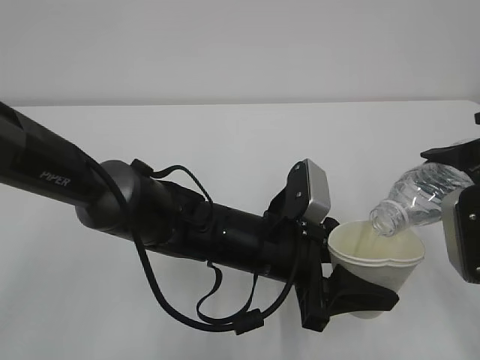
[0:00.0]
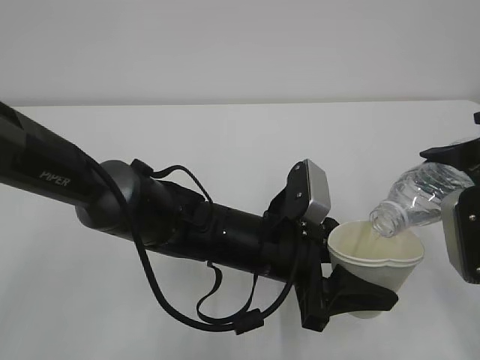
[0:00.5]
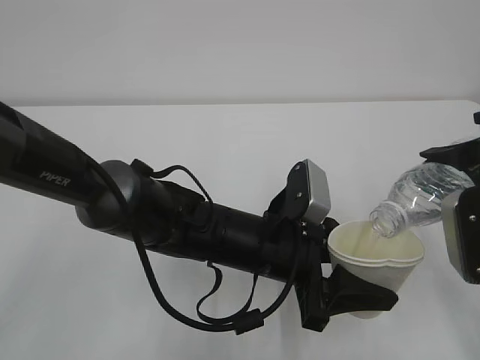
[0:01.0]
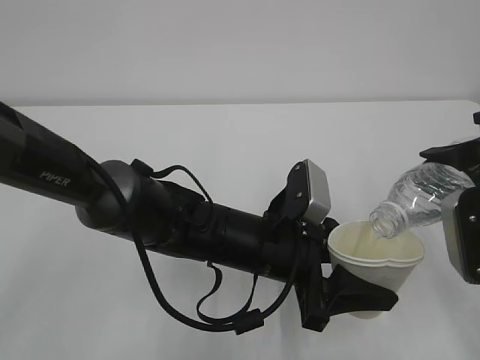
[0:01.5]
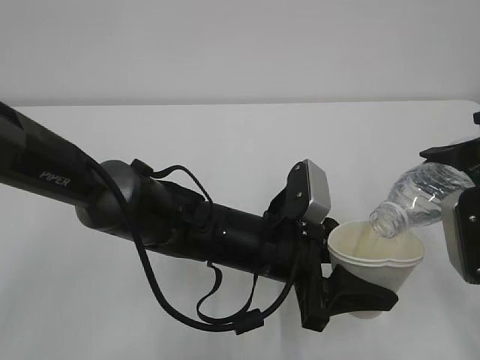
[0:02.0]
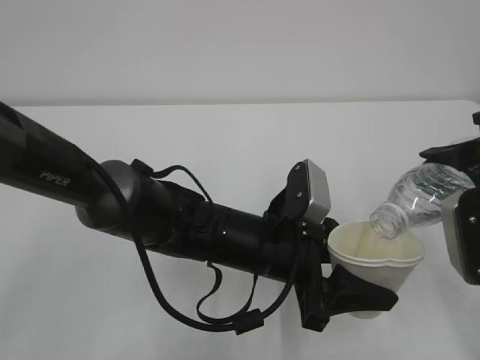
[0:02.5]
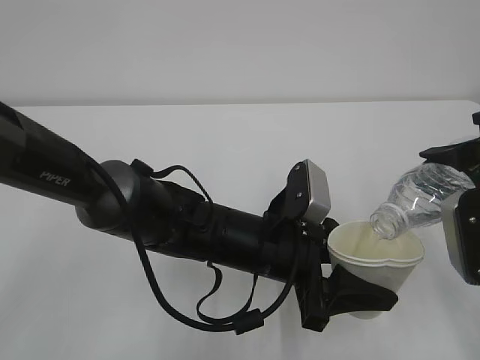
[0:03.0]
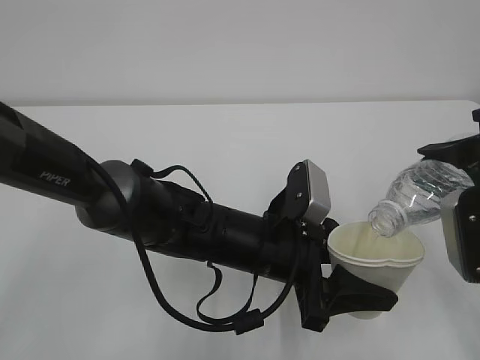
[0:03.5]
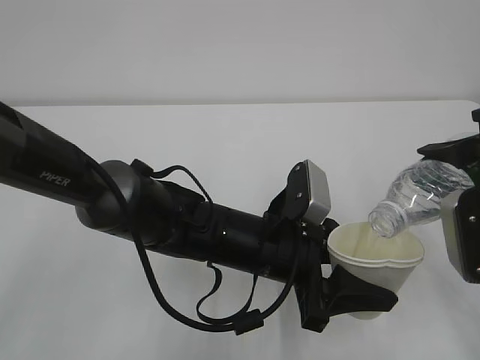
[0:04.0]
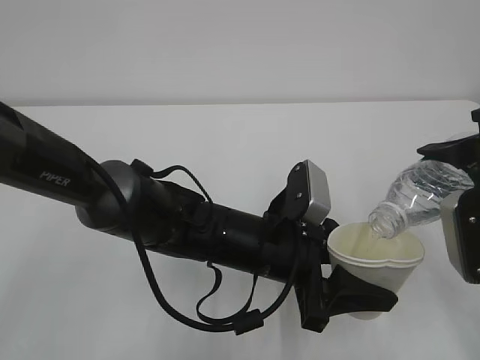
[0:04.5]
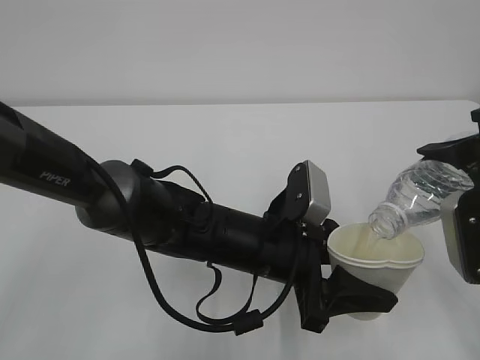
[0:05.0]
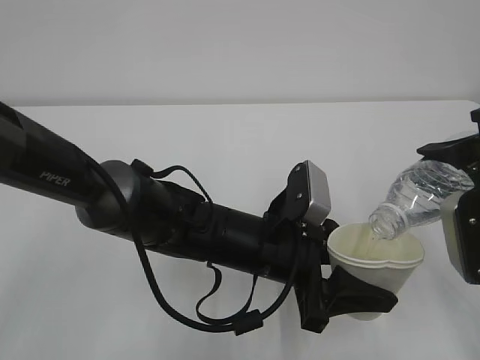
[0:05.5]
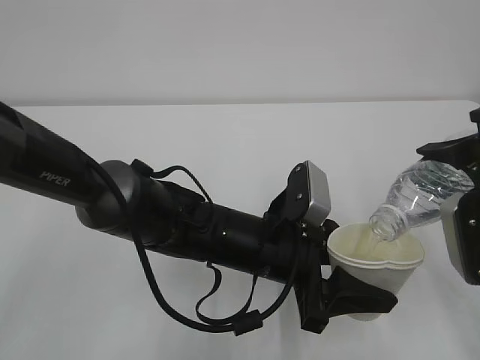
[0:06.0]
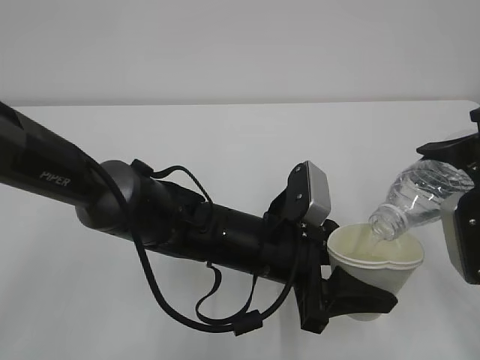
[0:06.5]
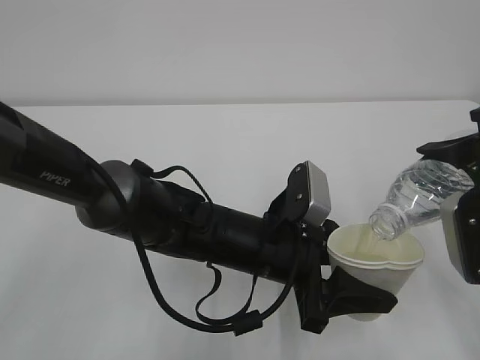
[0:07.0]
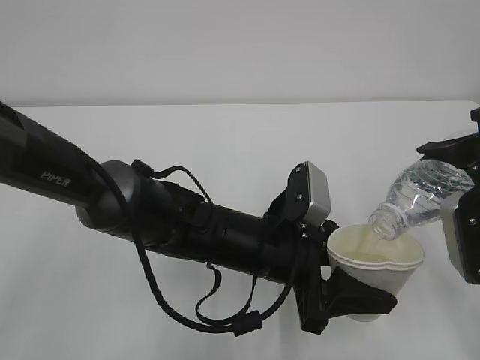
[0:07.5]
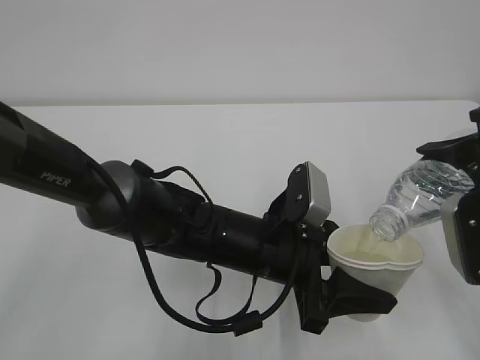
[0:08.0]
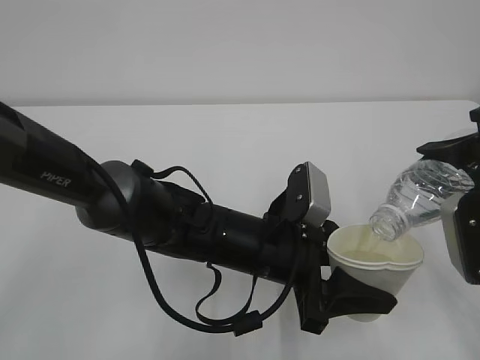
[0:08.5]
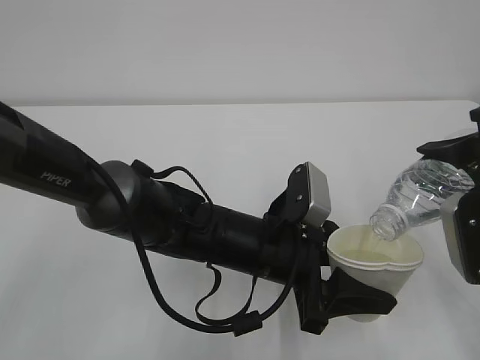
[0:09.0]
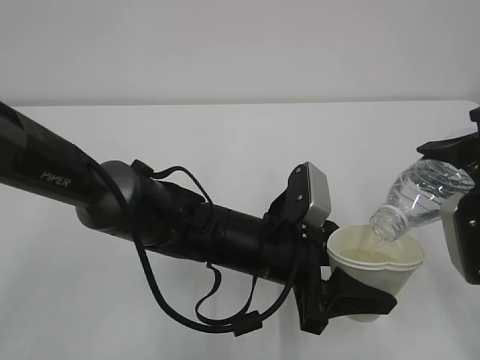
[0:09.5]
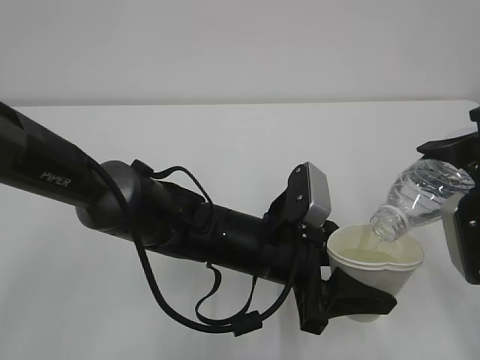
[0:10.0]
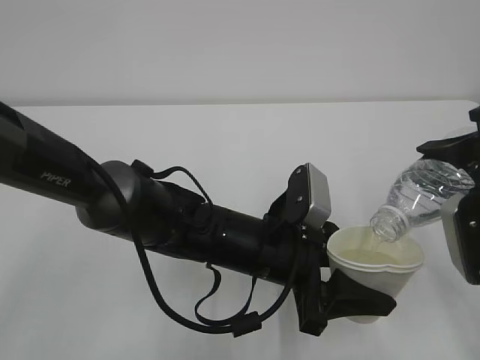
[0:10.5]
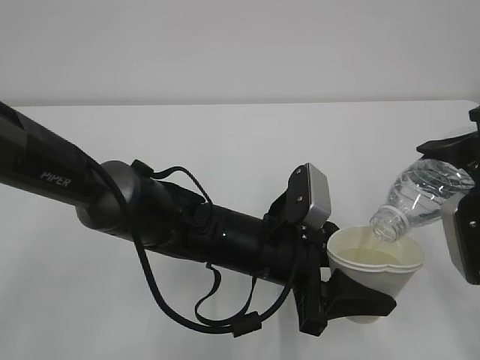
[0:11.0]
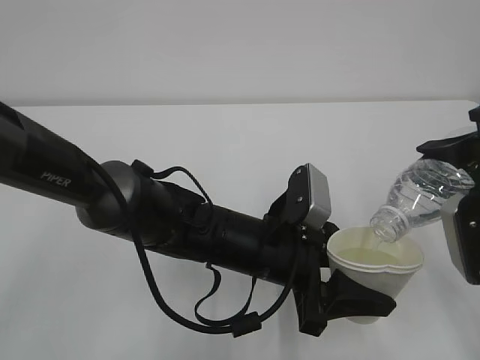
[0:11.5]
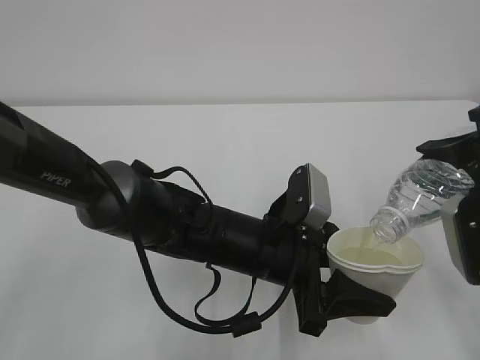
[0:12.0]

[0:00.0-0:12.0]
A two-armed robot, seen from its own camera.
0:00.0 to 0:04.0: Neither gripper changes place.
0:04.0 to 0:12.0: The two grippers keep their place.

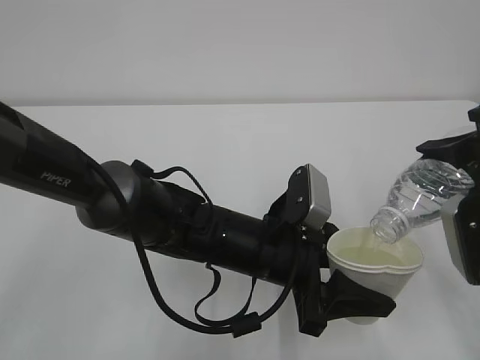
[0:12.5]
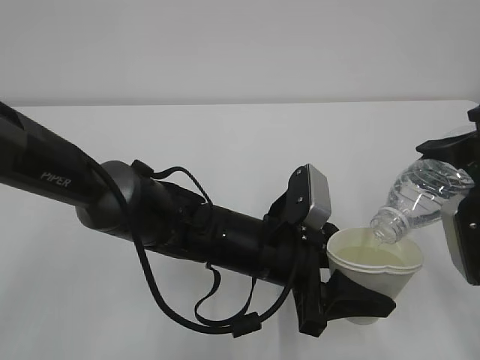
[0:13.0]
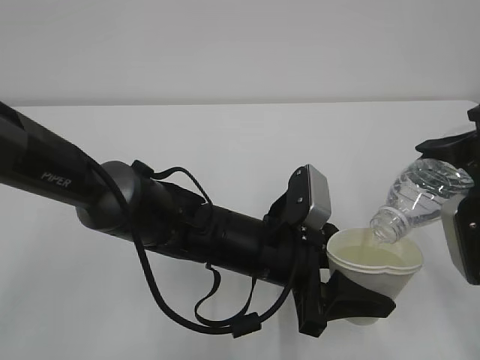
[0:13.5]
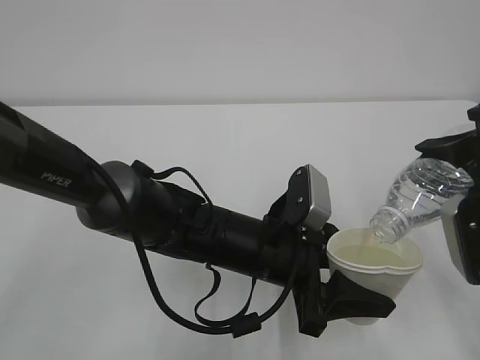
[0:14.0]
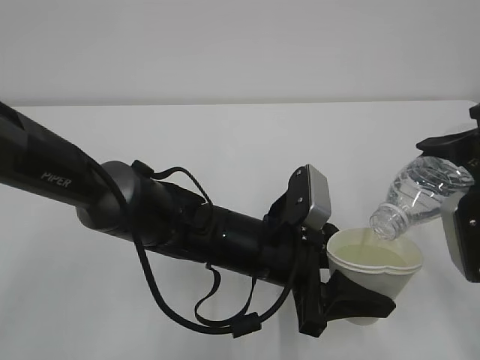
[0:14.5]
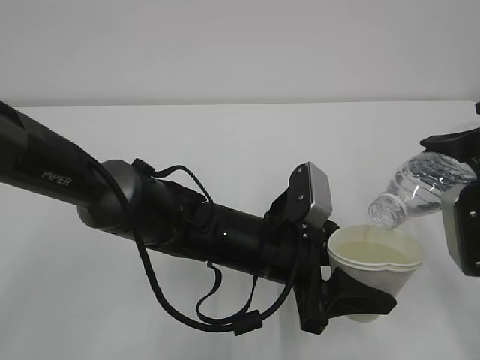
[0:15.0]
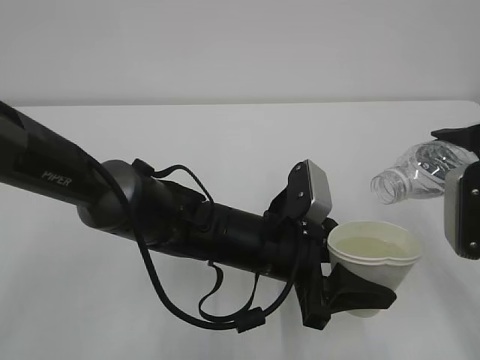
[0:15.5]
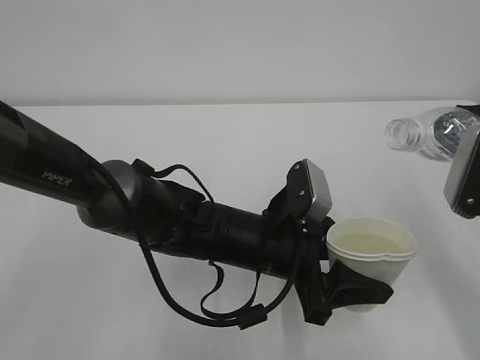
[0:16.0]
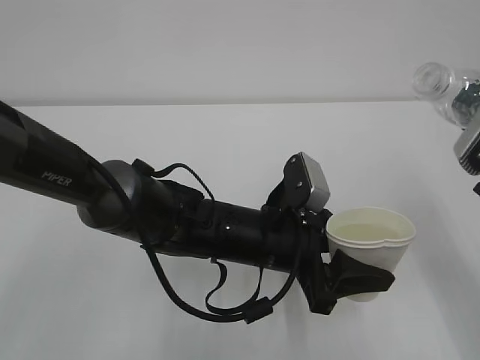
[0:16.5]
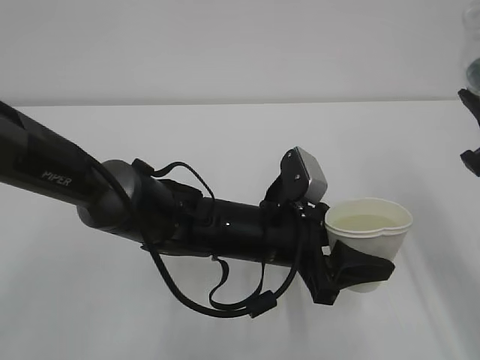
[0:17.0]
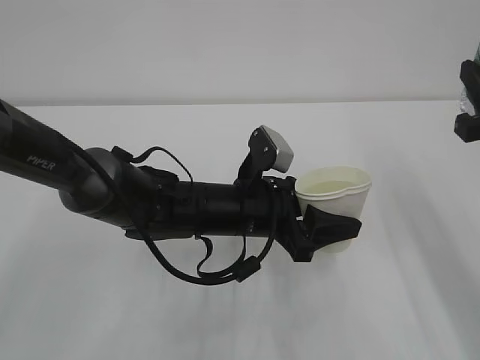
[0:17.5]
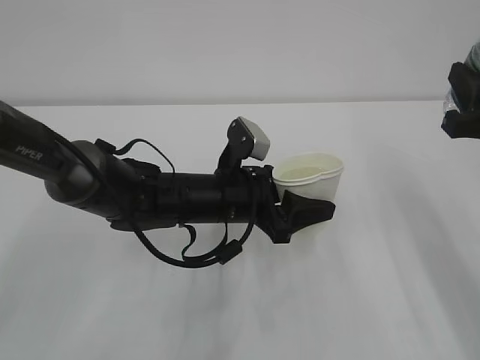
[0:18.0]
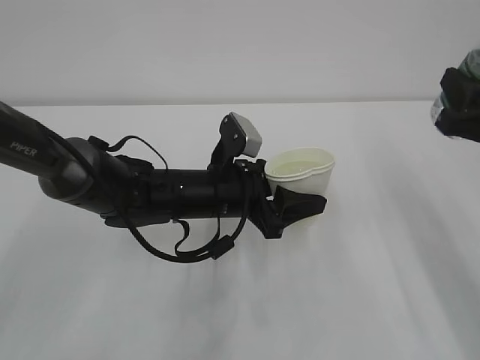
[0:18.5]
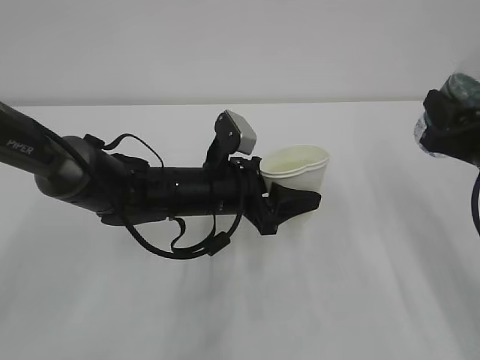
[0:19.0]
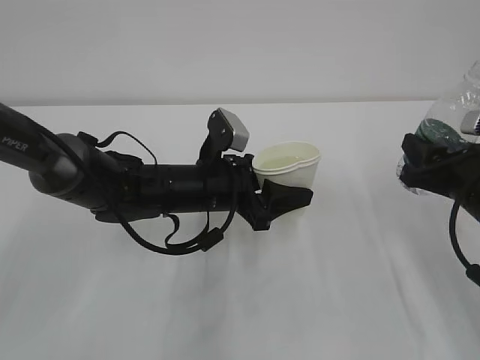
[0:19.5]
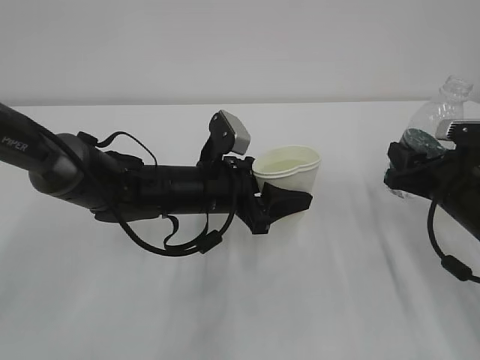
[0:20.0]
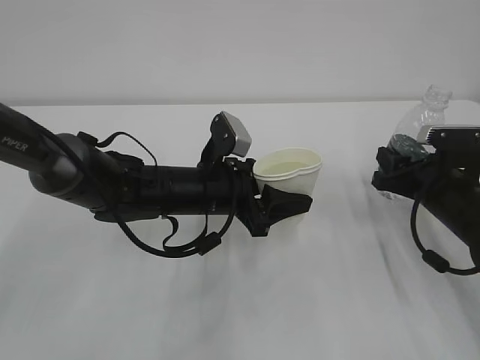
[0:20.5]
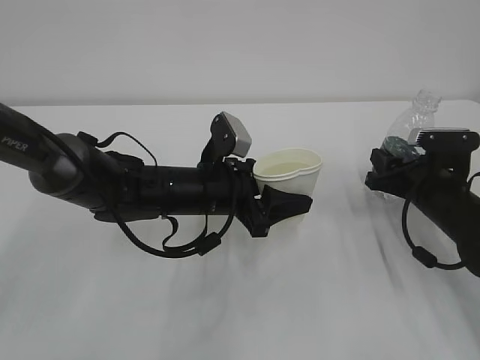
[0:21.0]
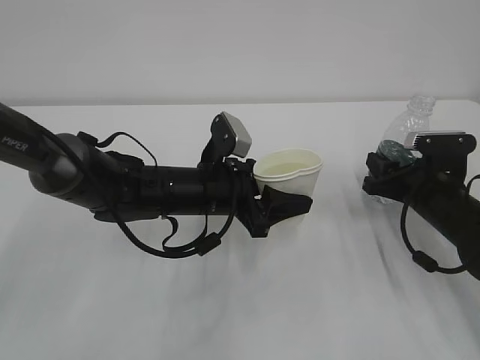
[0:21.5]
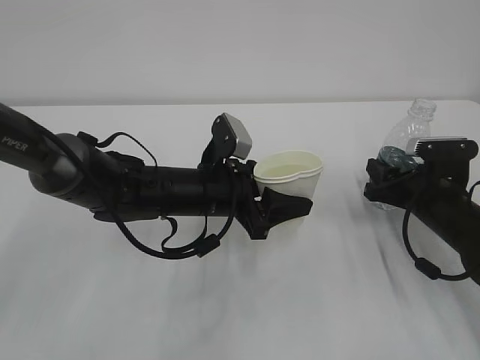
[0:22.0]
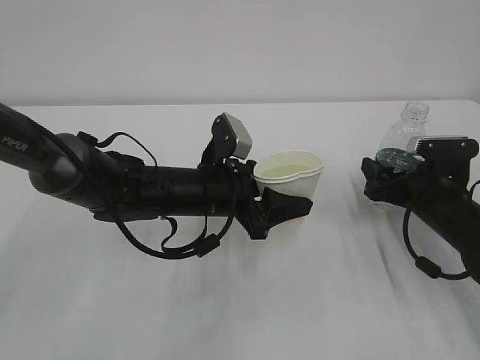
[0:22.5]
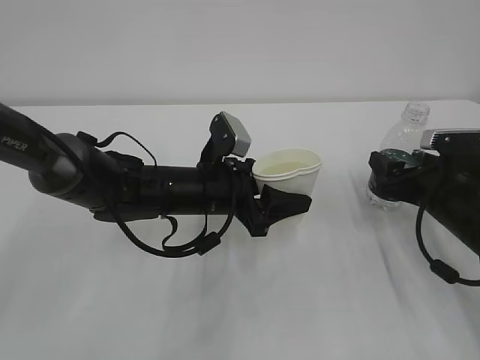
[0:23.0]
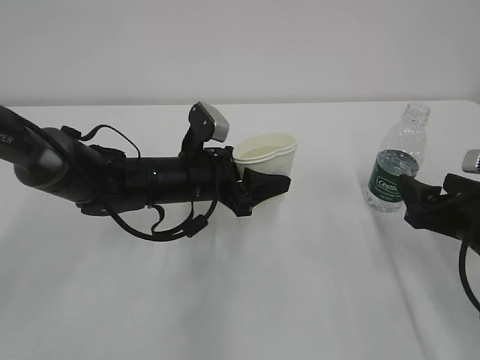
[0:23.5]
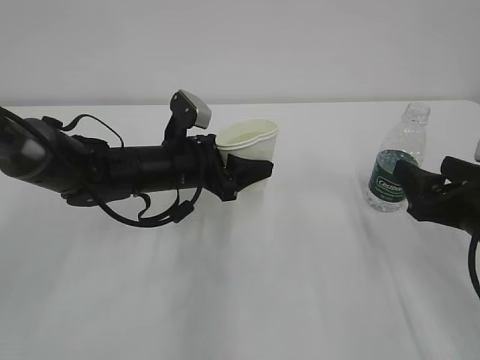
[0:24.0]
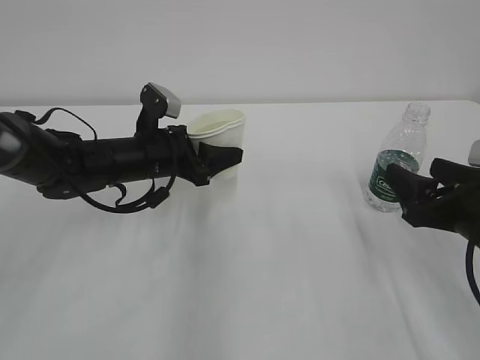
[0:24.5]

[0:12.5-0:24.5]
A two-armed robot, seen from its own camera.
0:12.5 to 0:14.5: The two grippers keep their place.
0:16.5 to 0:18.5: The left gripper travels forward and to the left by roughly 10 cm.
0:18.5 to 0:20.5: The right gripper is displaced downward and forward by some 15 cm.
0:20.5 to 0:22.5: The right gripper opens.
0:22.5 to 0:24.5: The left gripper moves to the left and forward, about 10 cm. Meanwhile the right gripper heads backward and upward, covering some 10 cm.

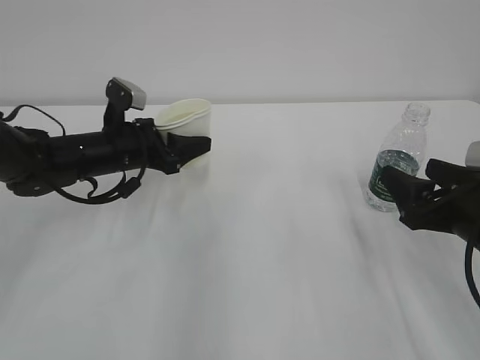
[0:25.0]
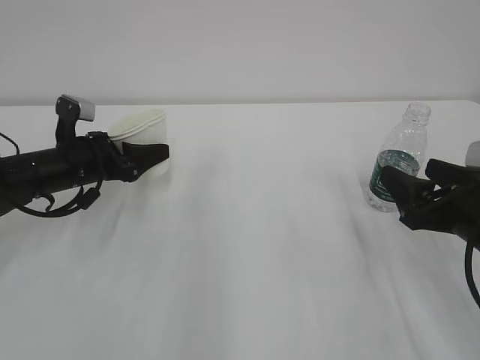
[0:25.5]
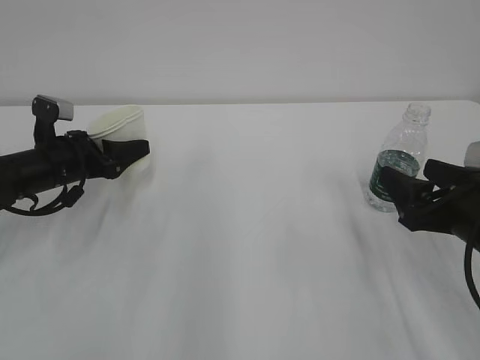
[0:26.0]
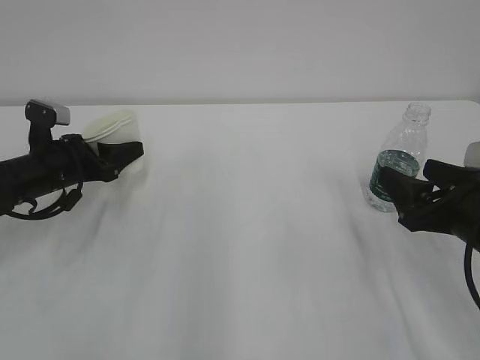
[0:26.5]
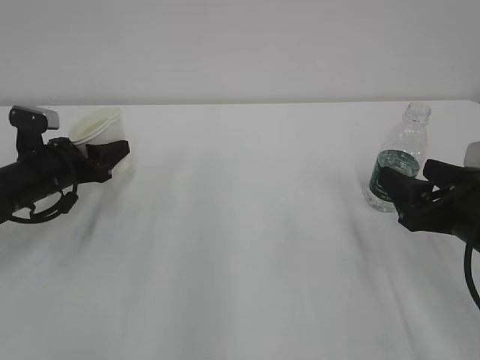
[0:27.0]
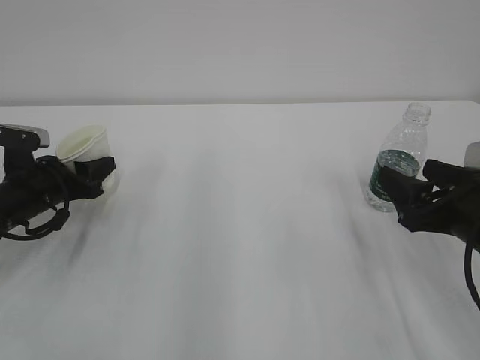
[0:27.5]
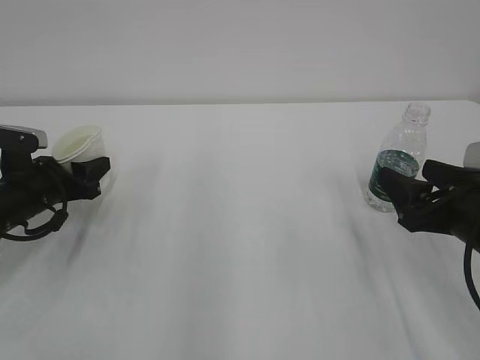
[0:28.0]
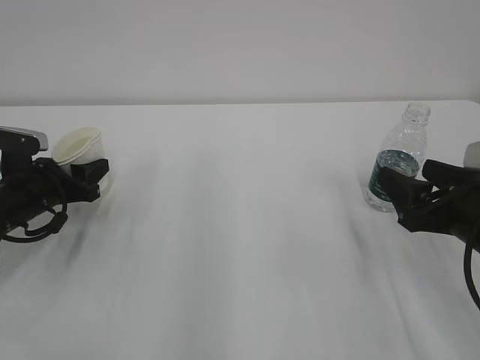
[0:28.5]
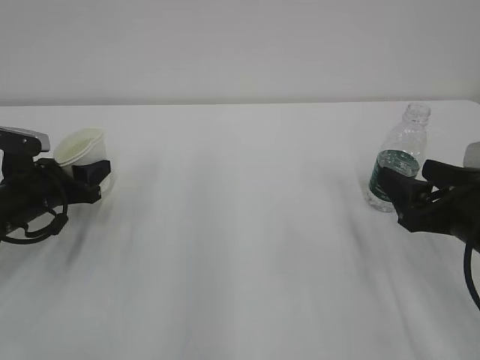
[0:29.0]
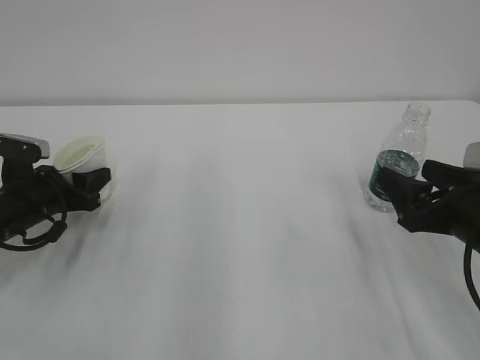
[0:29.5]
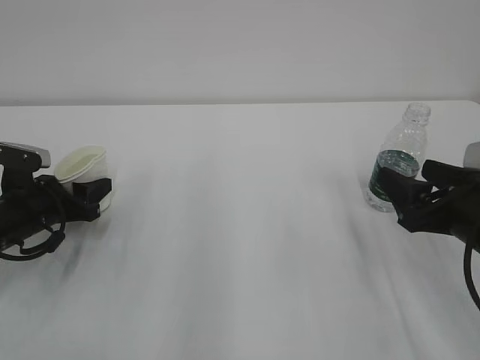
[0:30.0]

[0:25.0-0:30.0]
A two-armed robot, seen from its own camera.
0:25.0 to 0:27.5: The left gripper is displaced to the left by approximately 10 cm.
0:27.5 to 0:30.0: There are only small adjustments of the grippers.
